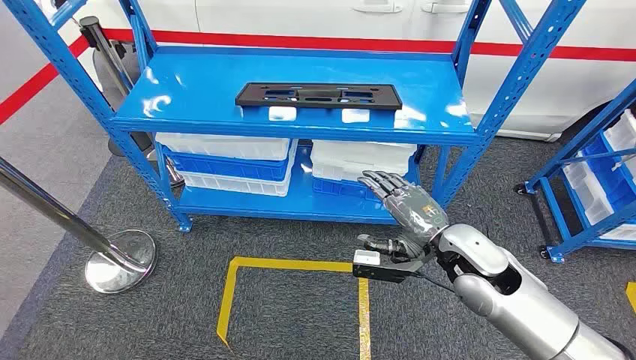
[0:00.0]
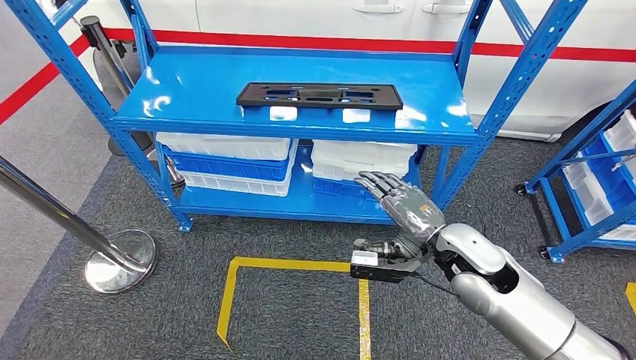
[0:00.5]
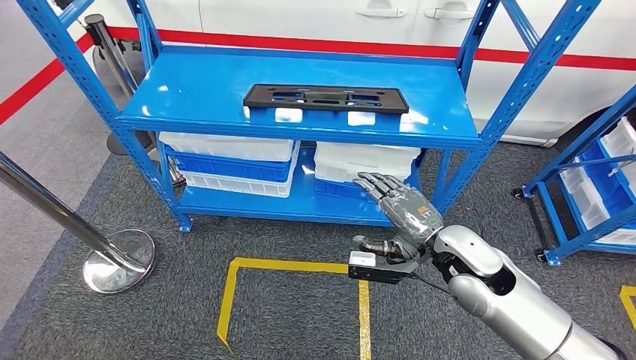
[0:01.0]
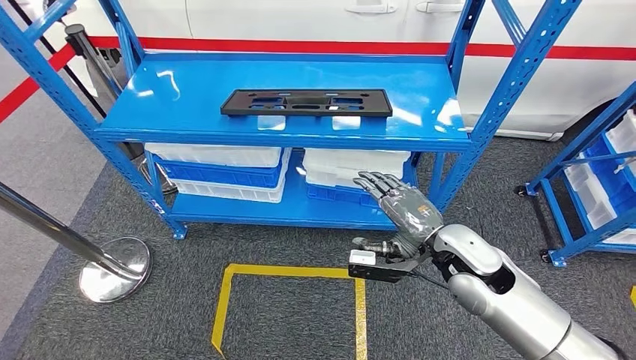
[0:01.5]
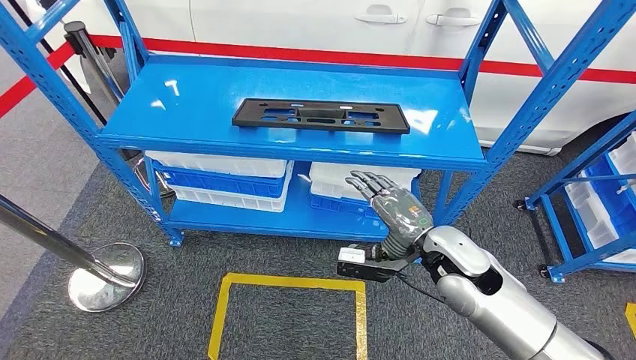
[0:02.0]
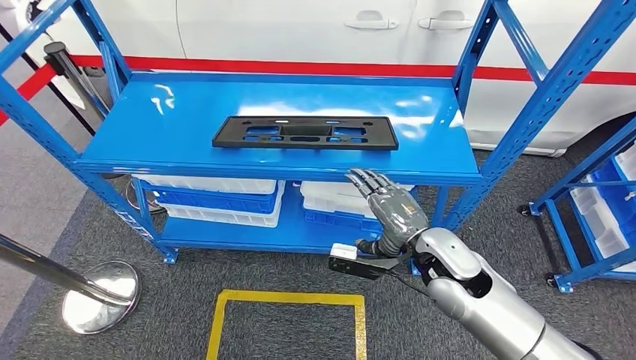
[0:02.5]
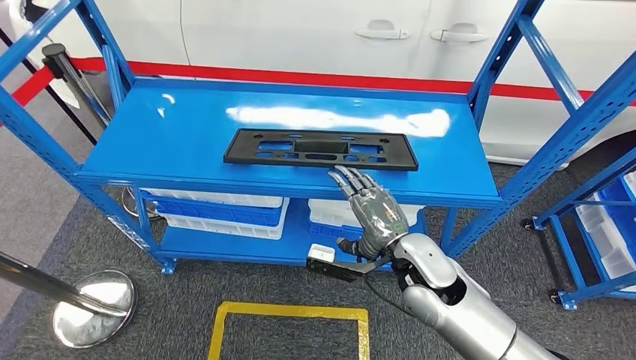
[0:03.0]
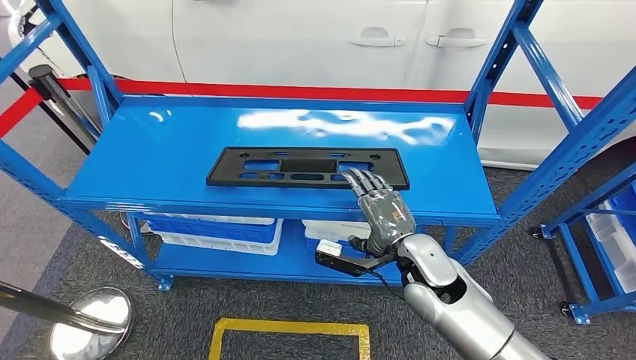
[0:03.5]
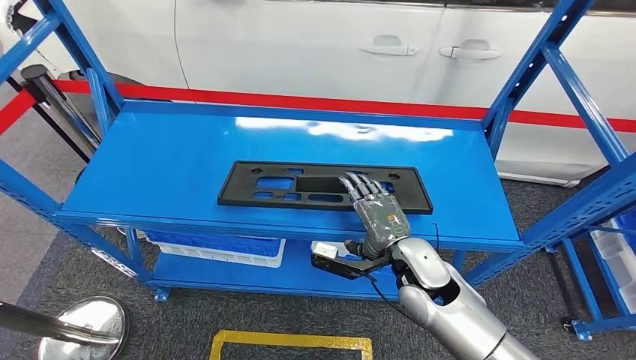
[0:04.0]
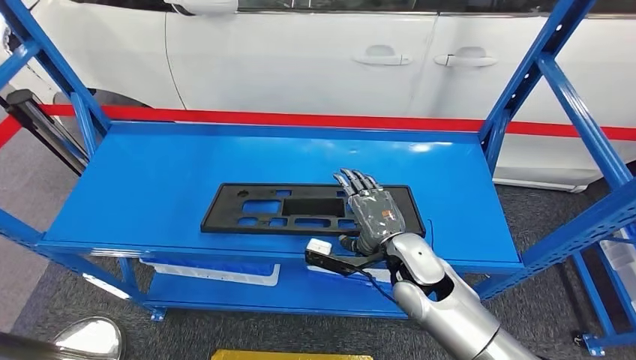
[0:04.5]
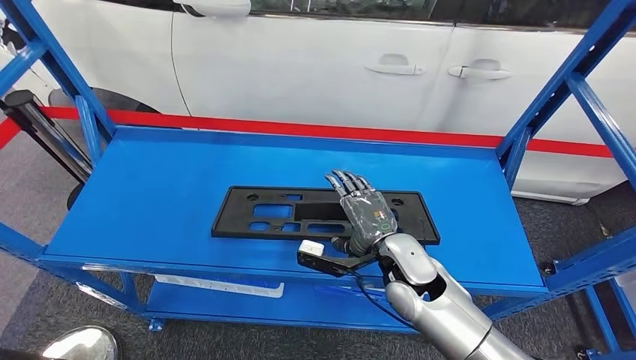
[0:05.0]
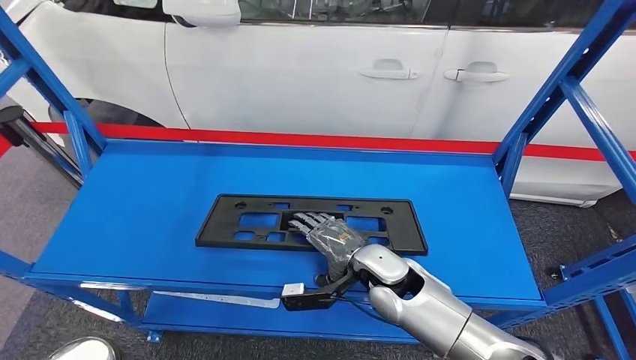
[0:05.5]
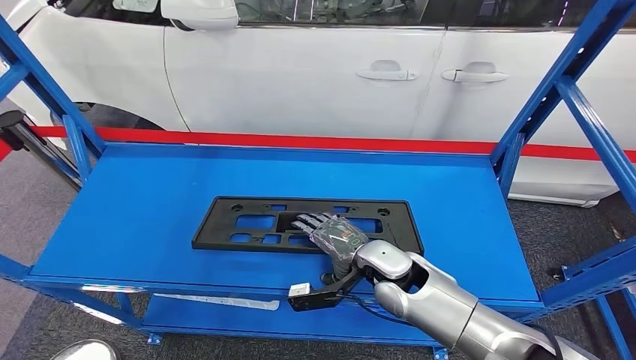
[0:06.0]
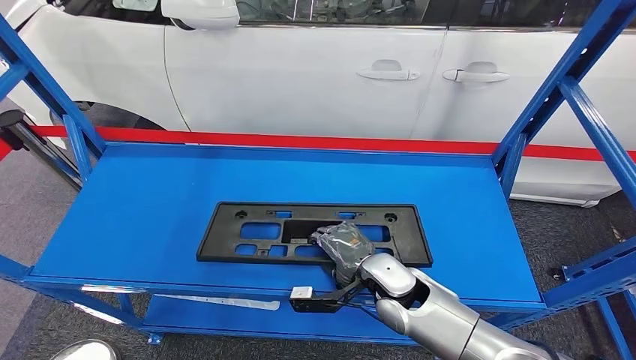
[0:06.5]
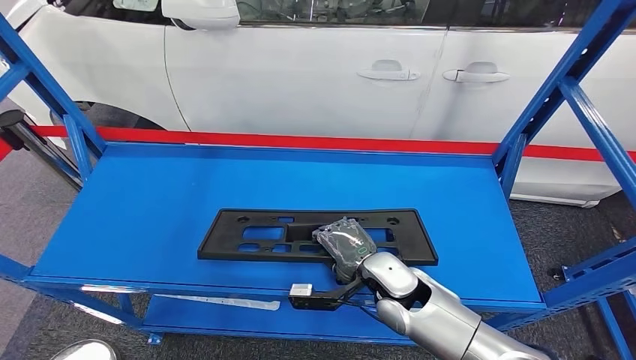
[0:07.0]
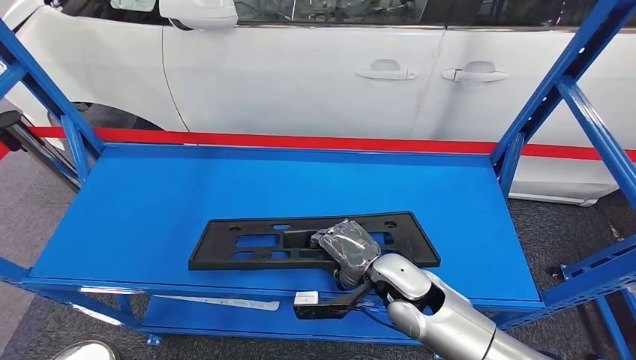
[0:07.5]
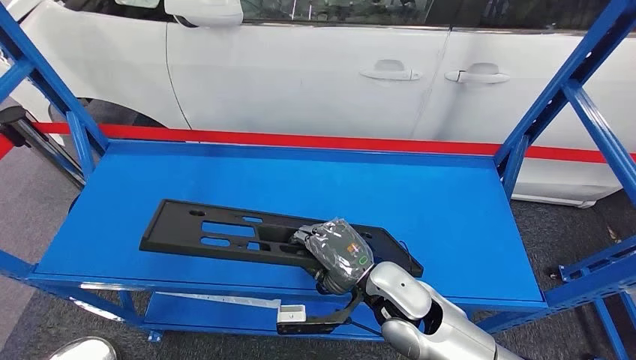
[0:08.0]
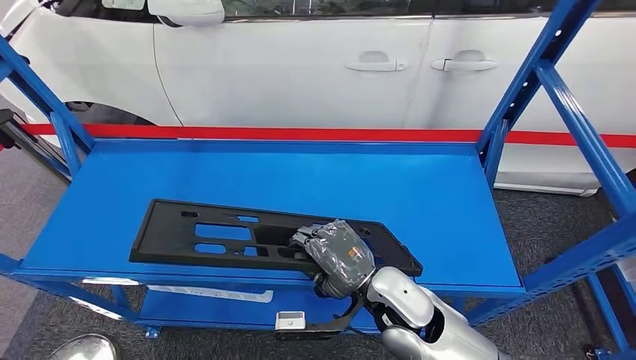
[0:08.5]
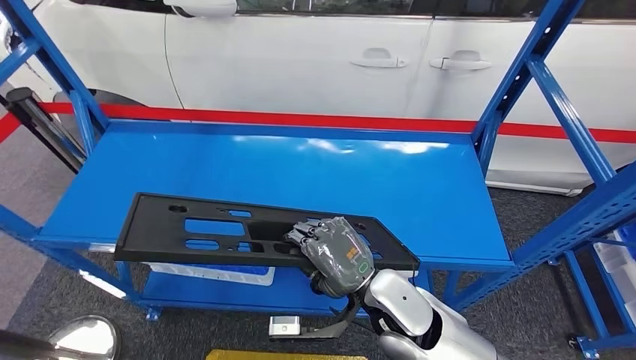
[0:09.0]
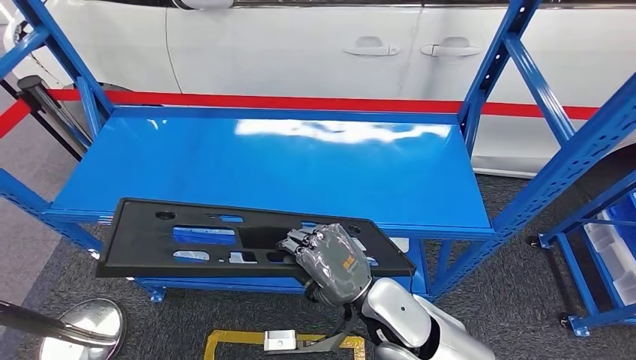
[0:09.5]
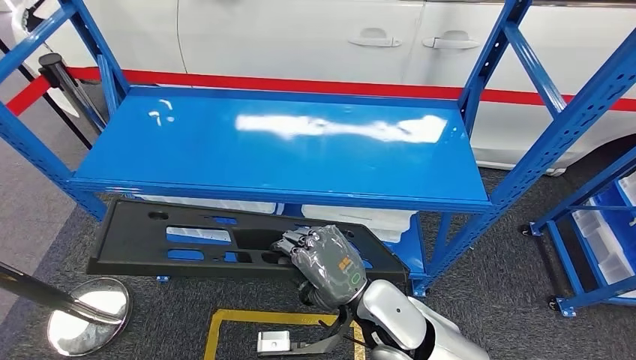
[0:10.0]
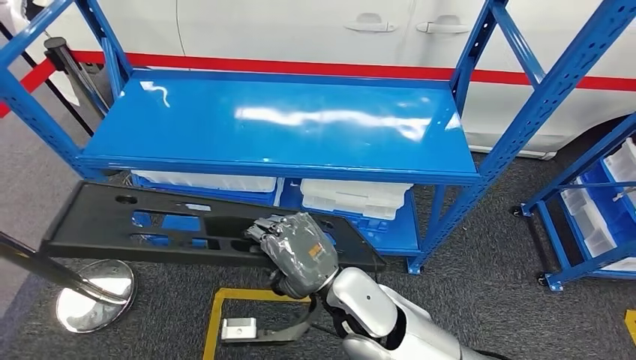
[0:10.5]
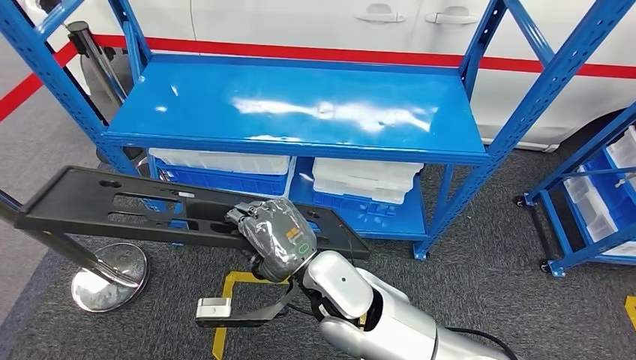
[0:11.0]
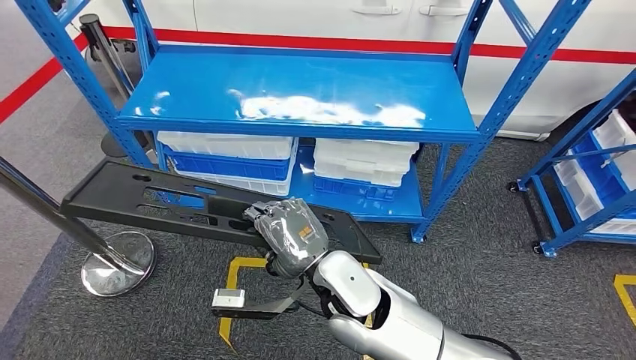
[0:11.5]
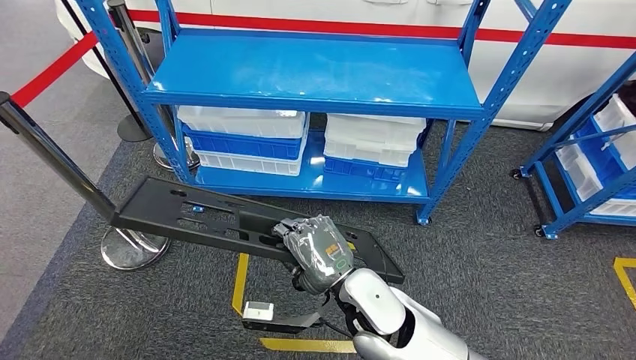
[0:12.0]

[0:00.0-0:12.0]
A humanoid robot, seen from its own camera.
Step, 0:00.0 to 0:11.5: Pick up the large material from the shelf.

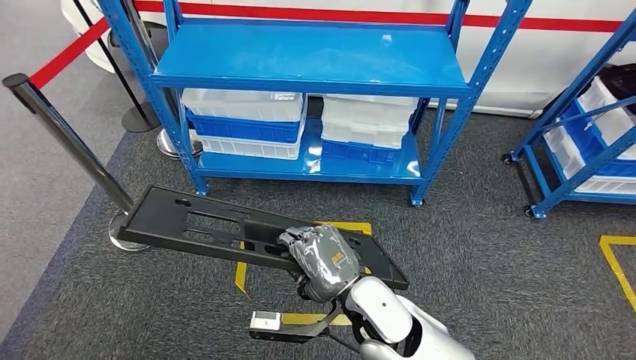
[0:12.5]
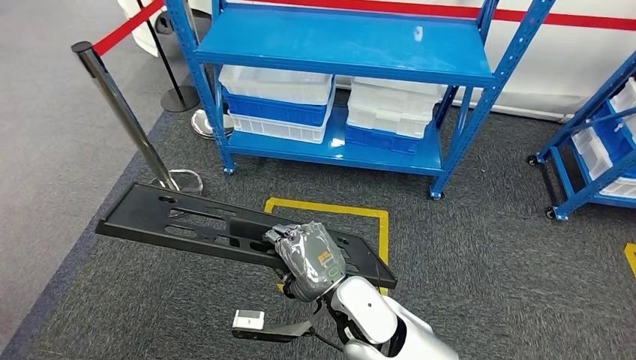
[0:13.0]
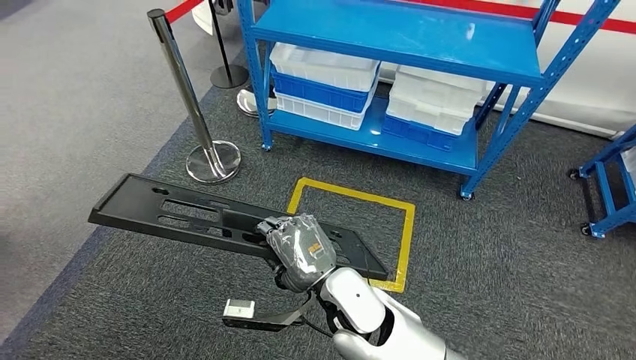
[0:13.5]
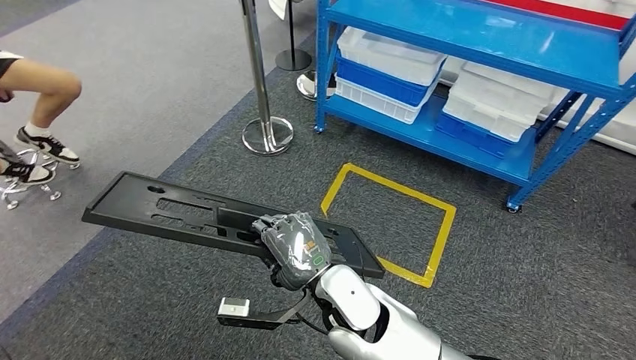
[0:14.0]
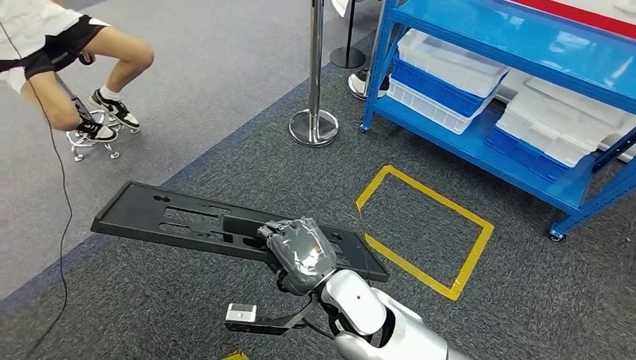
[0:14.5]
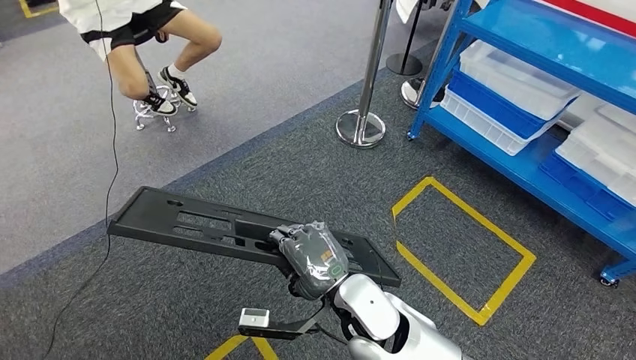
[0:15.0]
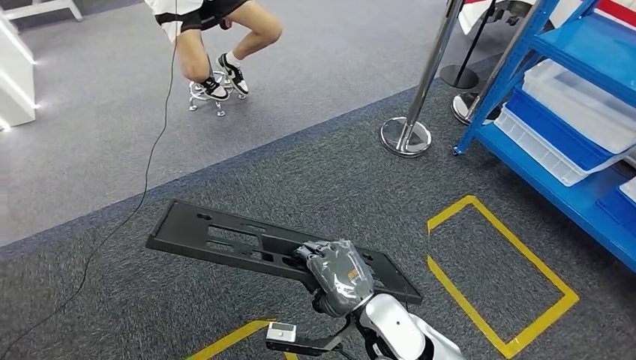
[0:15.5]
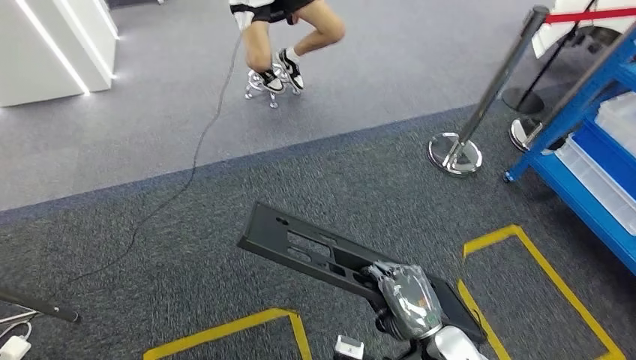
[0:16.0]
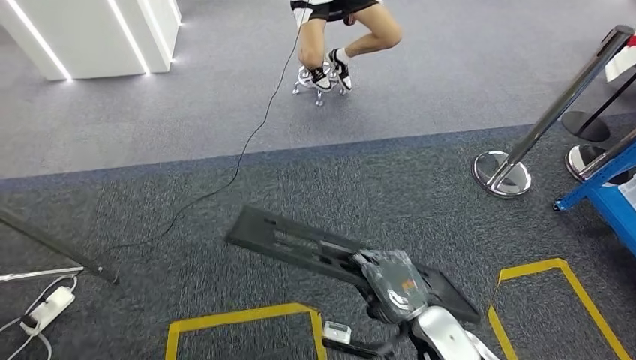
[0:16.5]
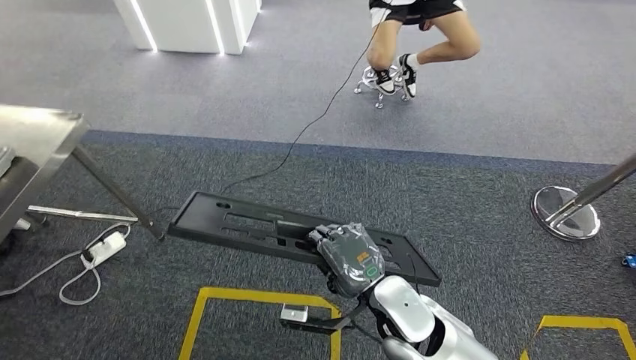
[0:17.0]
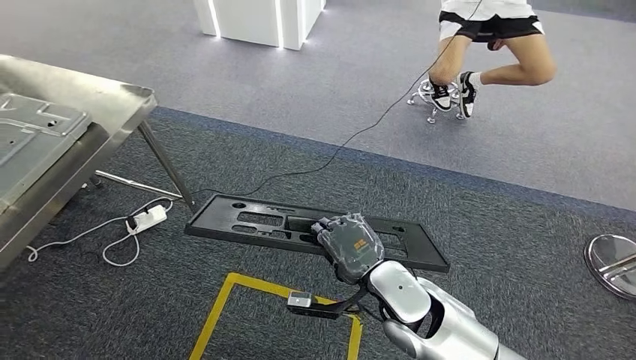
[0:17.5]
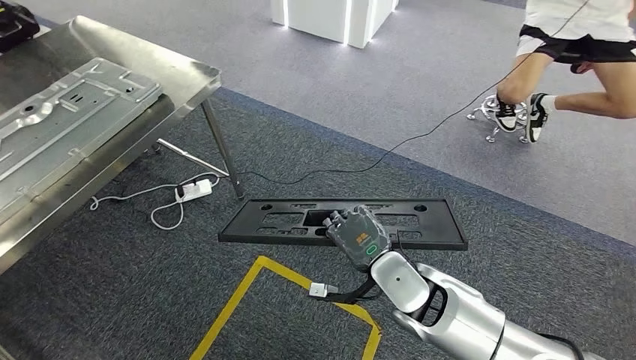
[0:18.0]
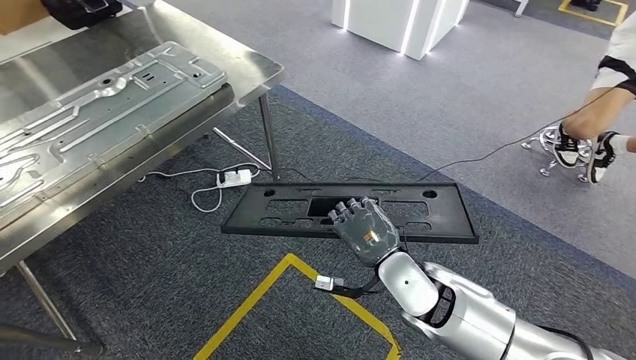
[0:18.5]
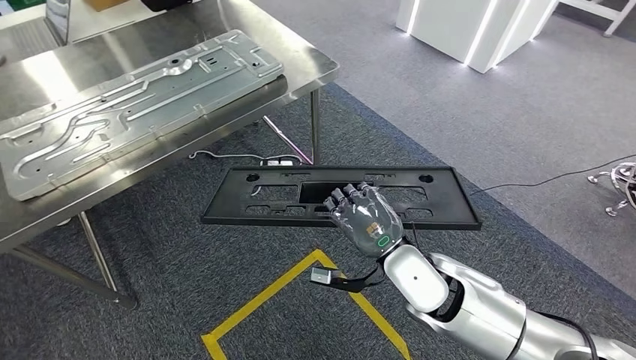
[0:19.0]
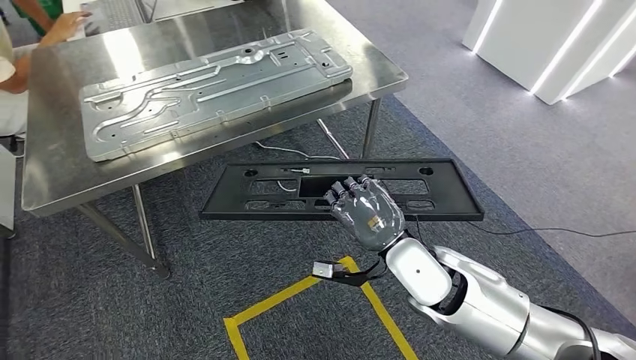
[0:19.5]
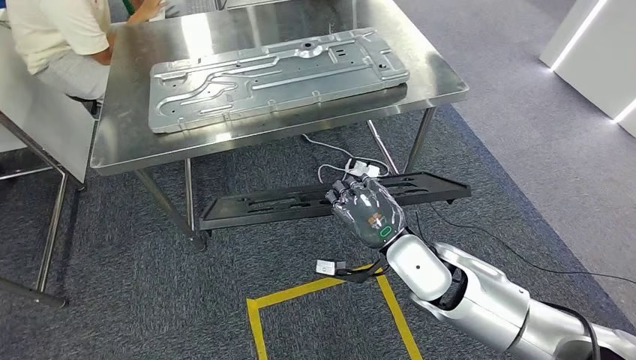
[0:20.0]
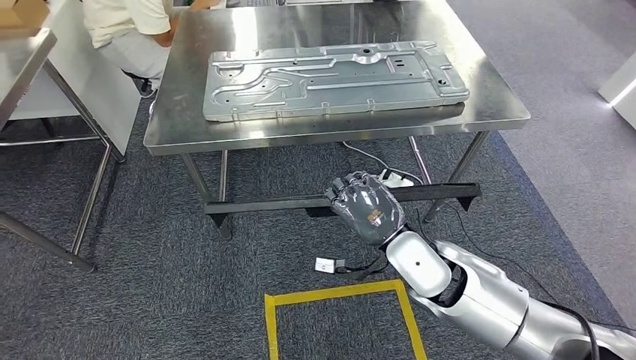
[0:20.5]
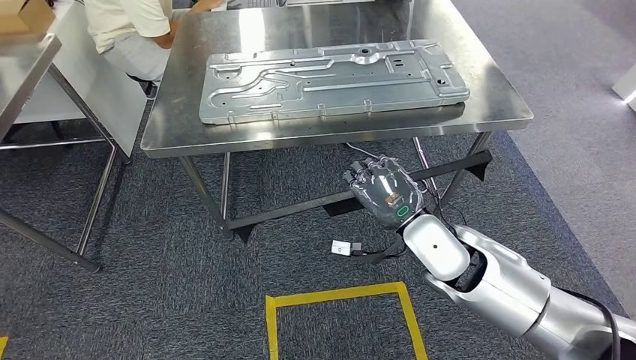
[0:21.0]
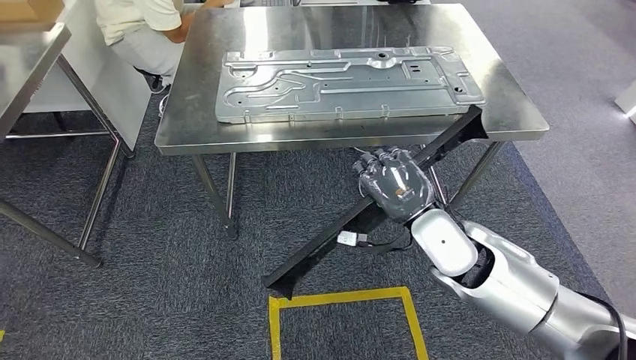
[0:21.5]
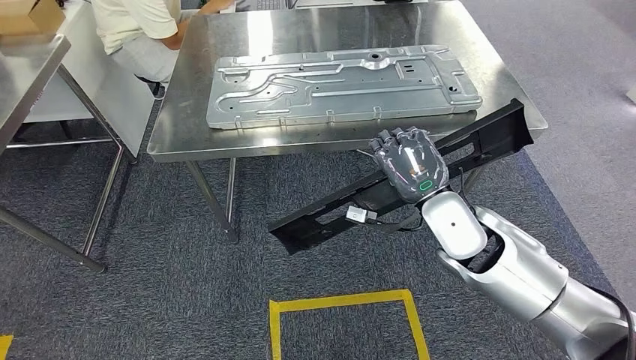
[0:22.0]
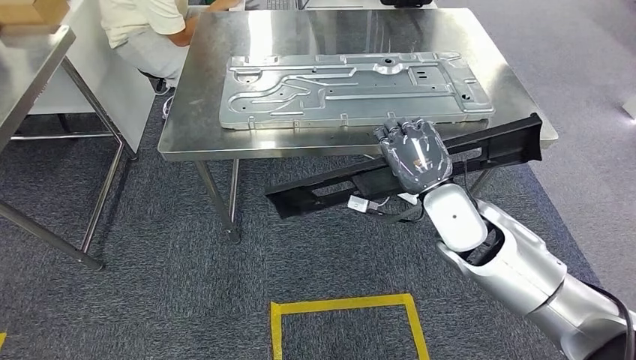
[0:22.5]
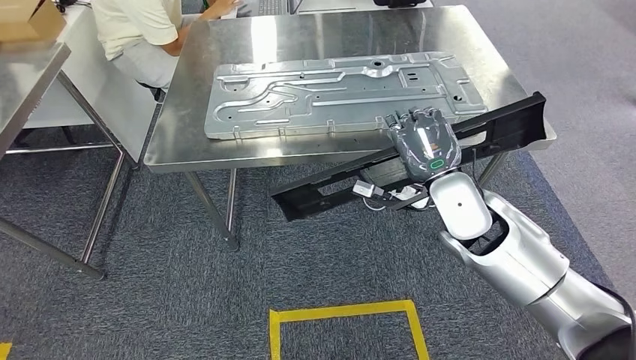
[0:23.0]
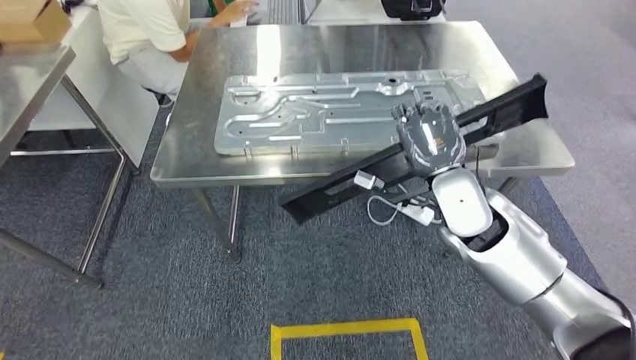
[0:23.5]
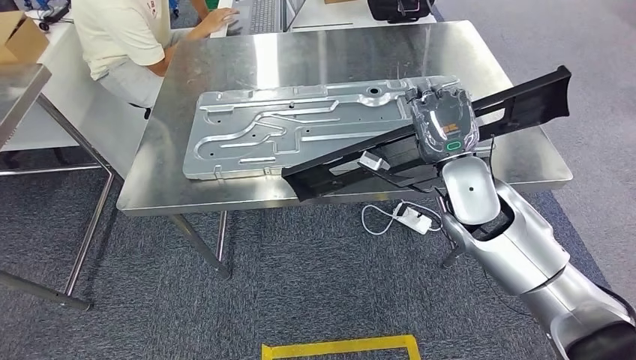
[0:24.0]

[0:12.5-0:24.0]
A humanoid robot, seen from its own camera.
Step, 0:12.5 to 0:23.0: Move the large material to the workbench.
